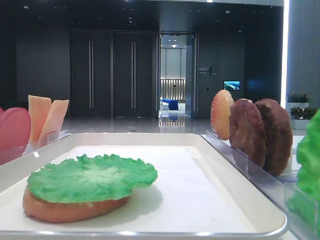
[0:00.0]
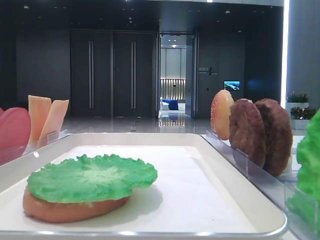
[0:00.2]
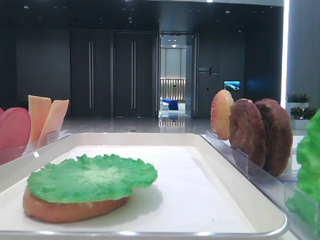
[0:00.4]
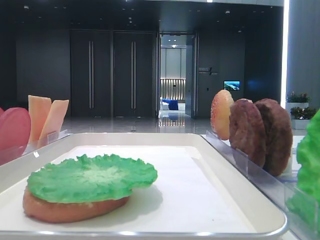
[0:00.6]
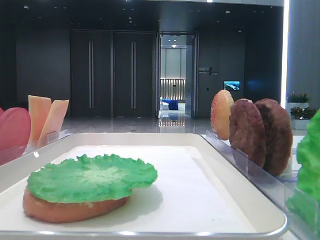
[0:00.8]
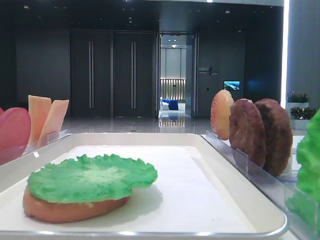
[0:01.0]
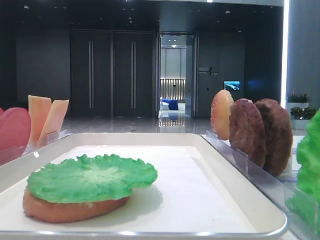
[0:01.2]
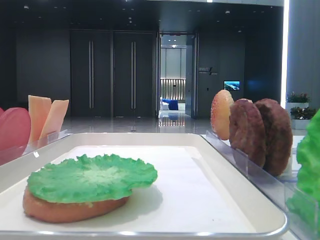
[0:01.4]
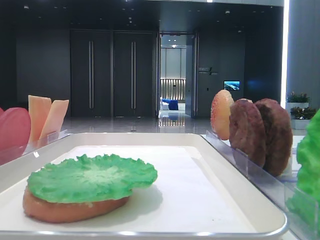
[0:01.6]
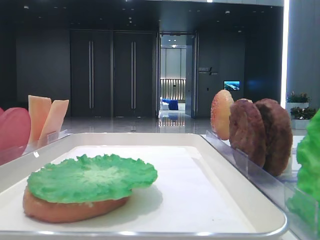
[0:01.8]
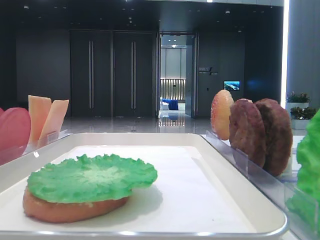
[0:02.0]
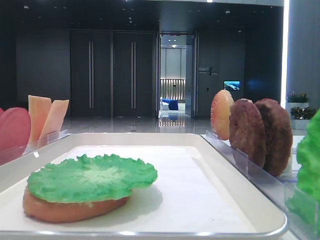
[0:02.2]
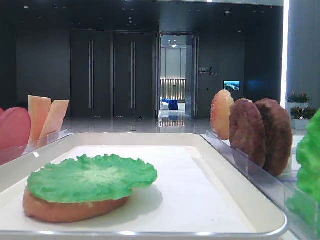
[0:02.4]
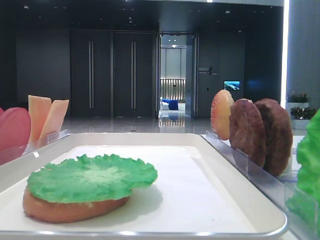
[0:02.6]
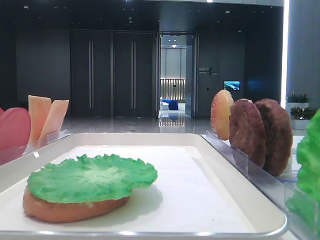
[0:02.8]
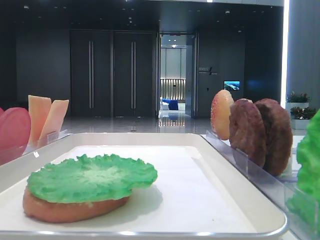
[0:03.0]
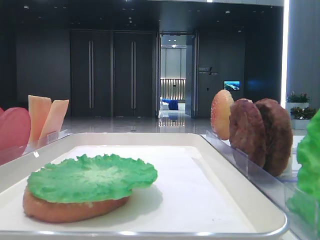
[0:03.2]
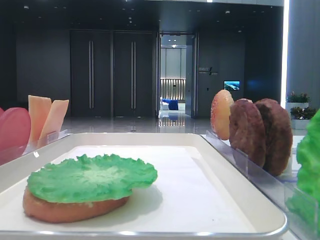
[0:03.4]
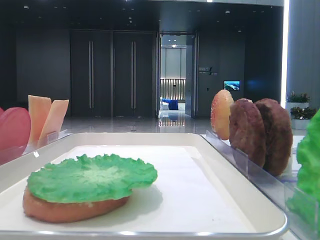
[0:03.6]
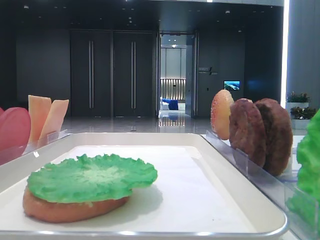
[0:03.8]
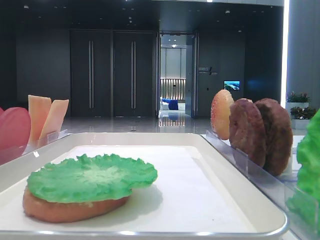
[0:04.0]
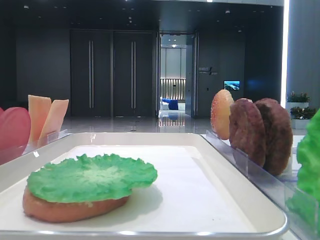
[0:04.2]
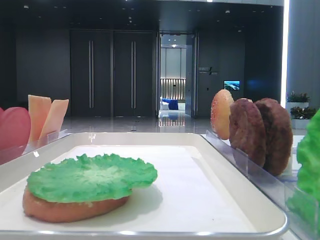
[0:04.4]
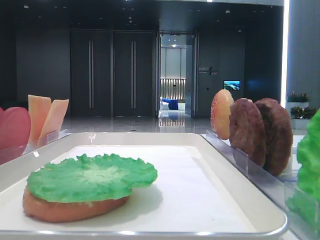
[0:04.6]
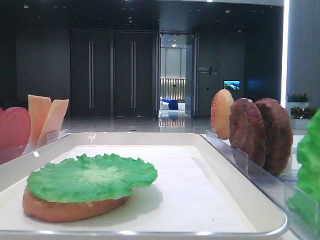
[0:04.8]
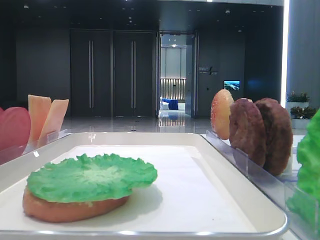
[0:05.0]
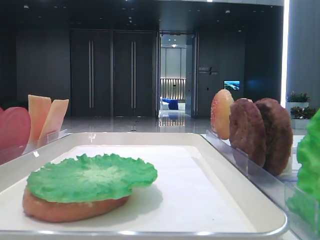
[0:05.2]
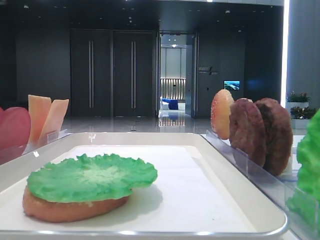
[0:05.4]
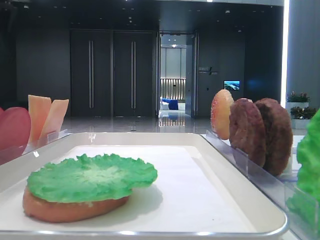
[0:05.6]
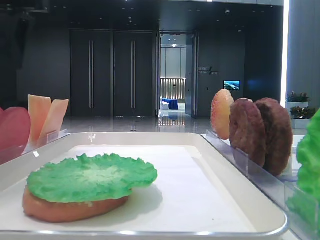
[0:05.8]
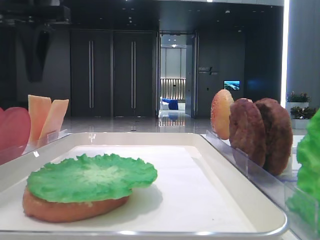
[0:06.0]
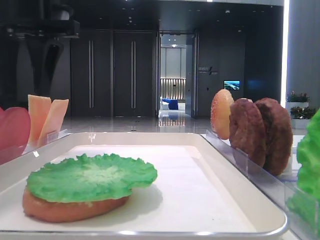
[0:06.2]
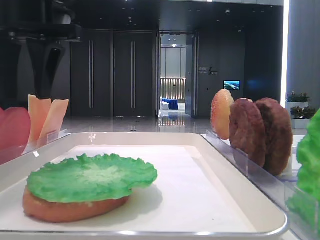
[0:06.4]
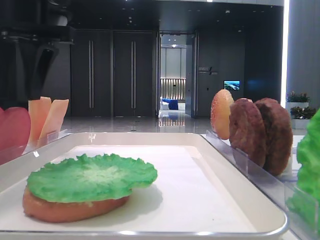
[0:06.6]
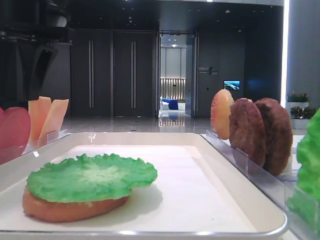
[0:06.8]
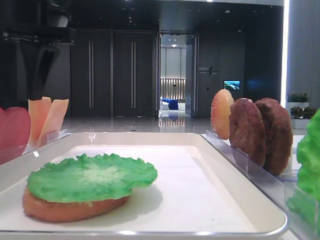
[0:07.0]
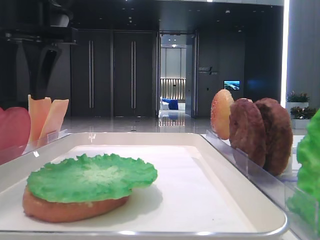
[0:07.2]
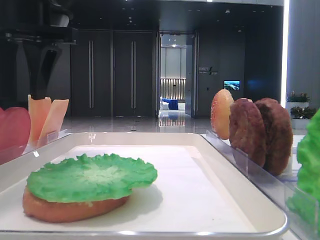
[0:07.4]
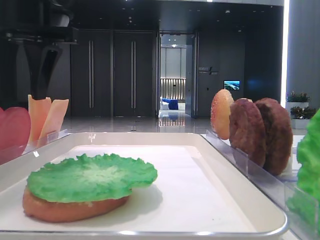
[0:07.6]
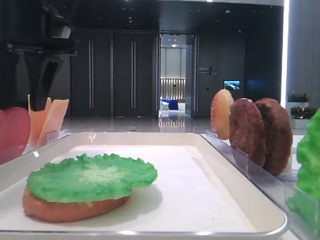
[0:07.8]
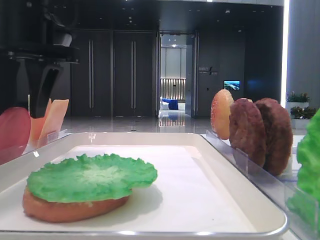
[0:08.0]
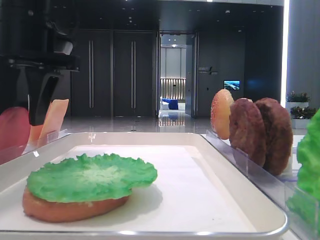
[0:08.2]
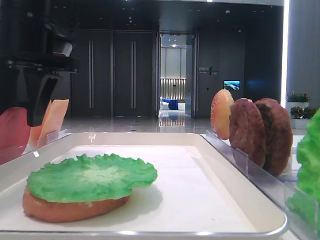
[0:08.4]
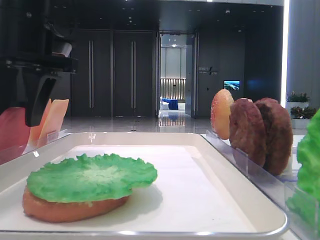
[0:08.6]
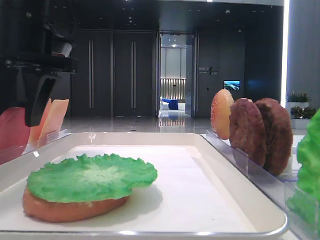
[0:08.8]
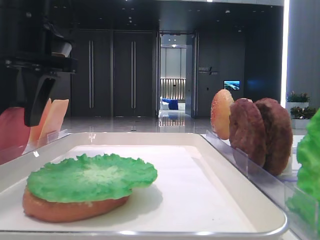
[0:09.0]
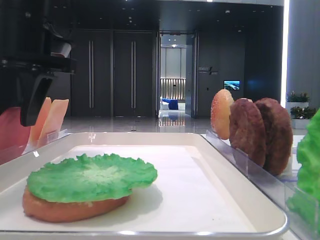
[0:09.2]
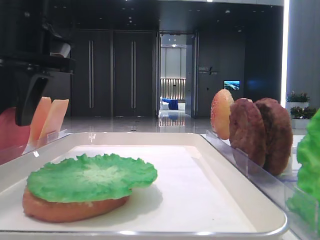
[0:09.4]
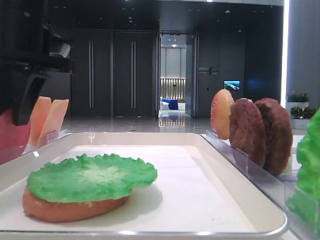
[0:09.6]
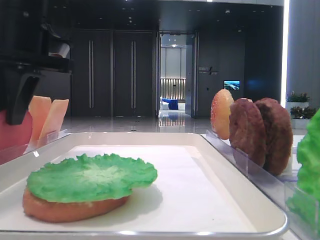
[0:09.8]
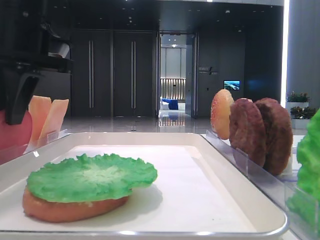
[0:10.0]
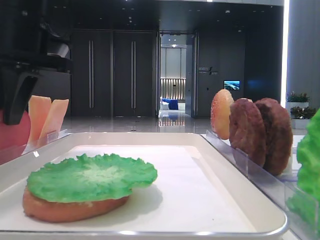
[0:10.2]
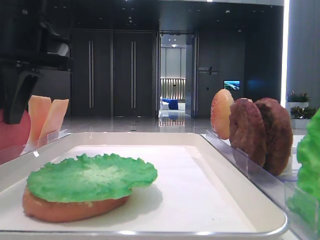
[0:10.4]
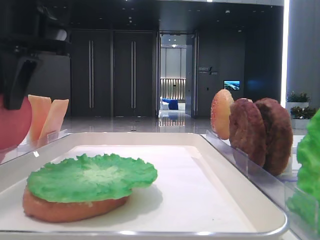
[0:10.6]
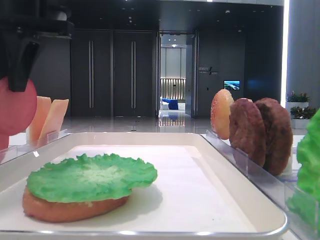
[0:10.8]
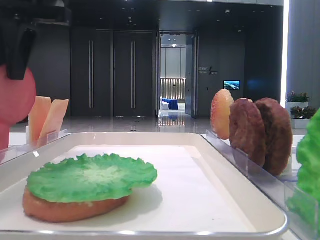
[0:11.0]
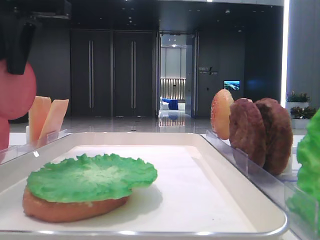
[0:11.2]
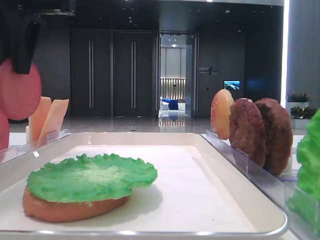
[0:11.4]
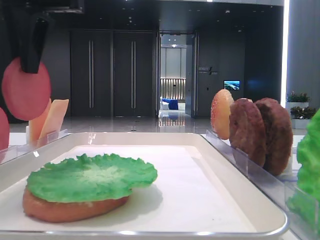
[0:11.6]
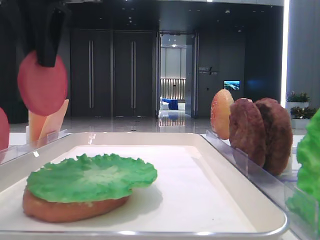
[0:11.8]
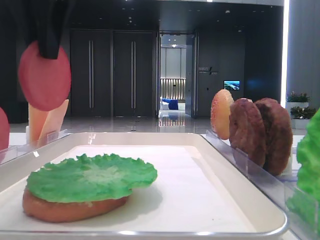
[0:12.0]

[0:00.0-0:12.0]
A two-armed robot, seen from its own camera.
Step, 0:00.0 to 0:10.2: Pick up the tomato slice with the left hand.
0:04.4 to 0:06.0: The left gripper travels to the right, forward and downward by about 15 cm.
0:07.6 to 0:09.0: There are only small adjustments of the grippers.
0:09.0 to 0:10.4: The left gripper closes.
0:10.4 to 0:12.0: The left gripper moves upward and backward, approximately 10 cm.

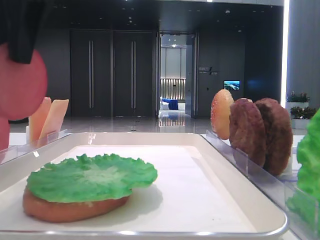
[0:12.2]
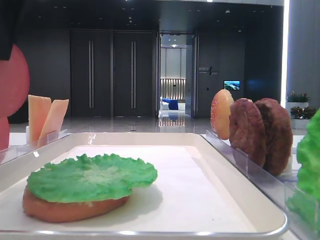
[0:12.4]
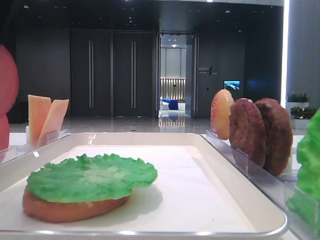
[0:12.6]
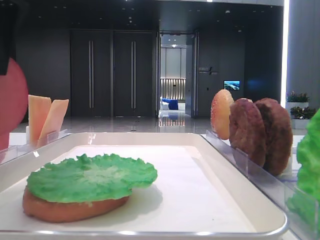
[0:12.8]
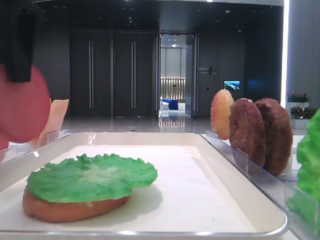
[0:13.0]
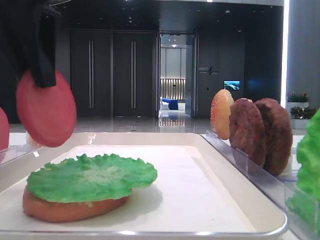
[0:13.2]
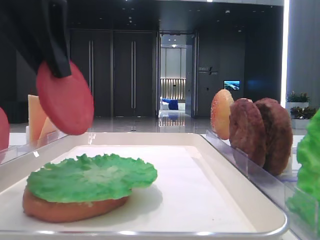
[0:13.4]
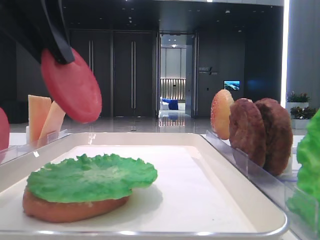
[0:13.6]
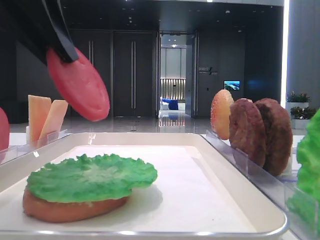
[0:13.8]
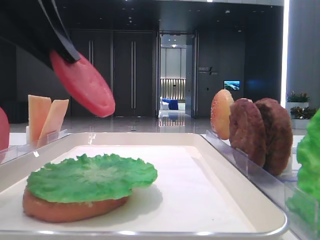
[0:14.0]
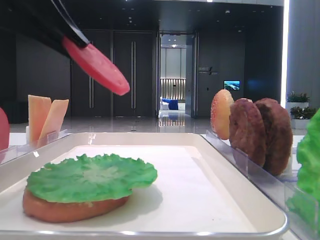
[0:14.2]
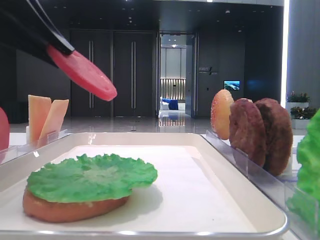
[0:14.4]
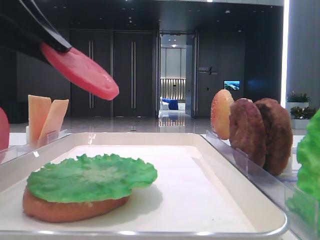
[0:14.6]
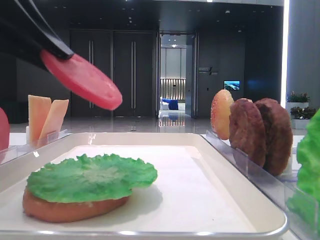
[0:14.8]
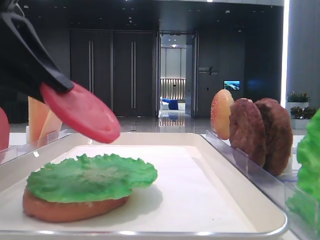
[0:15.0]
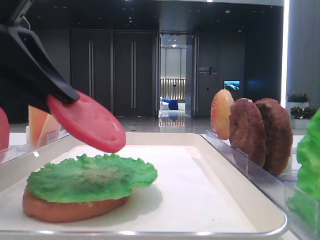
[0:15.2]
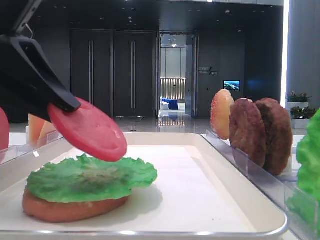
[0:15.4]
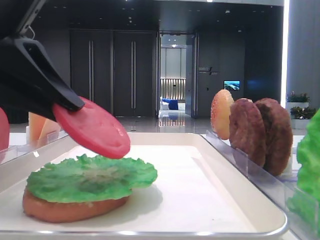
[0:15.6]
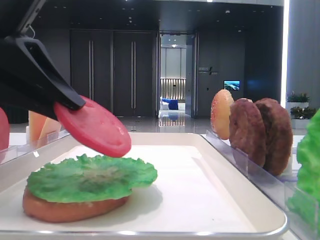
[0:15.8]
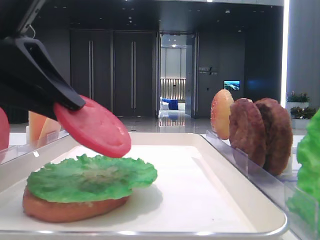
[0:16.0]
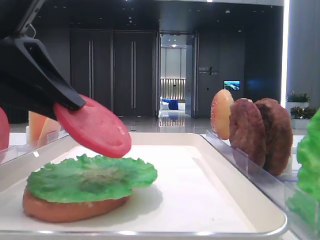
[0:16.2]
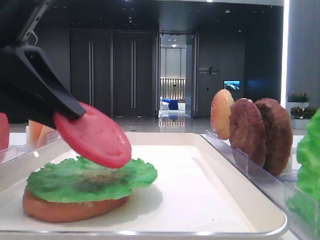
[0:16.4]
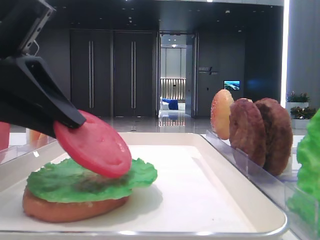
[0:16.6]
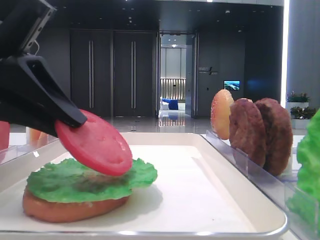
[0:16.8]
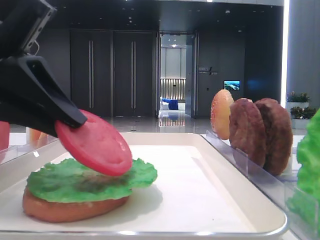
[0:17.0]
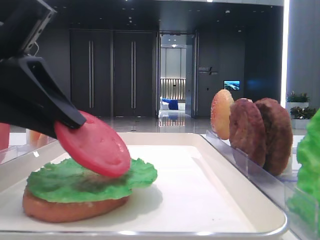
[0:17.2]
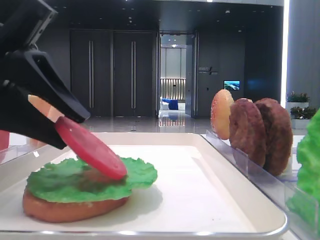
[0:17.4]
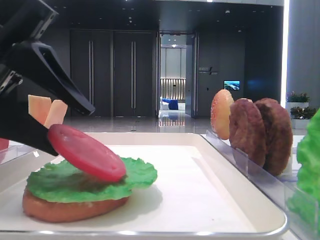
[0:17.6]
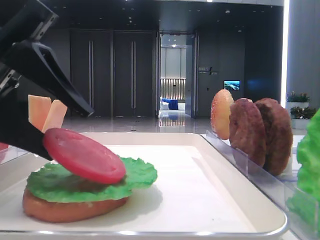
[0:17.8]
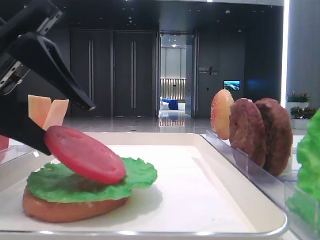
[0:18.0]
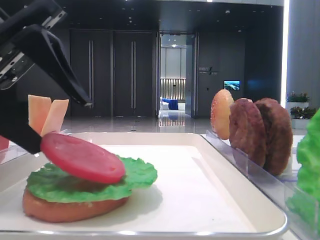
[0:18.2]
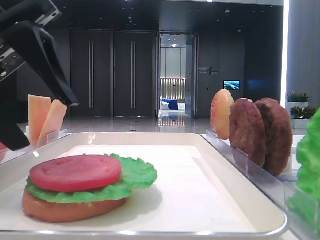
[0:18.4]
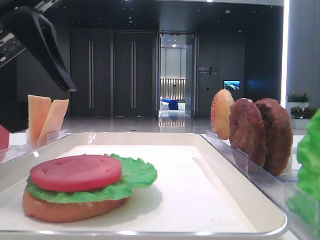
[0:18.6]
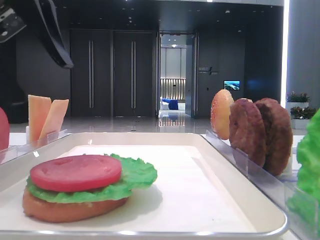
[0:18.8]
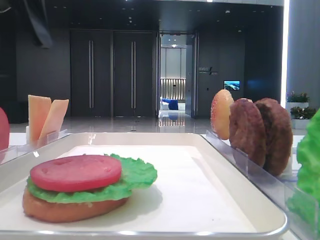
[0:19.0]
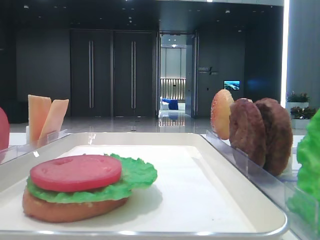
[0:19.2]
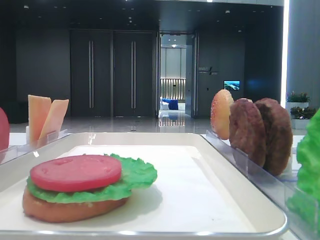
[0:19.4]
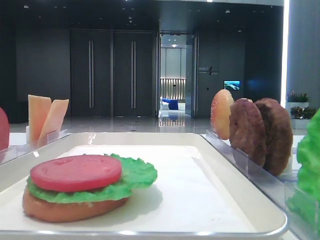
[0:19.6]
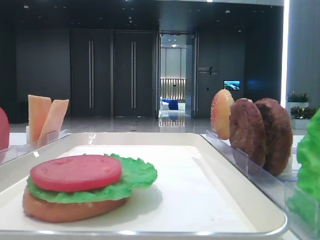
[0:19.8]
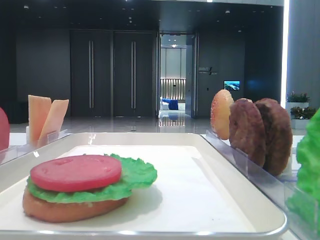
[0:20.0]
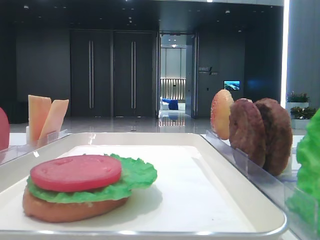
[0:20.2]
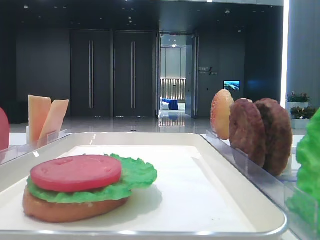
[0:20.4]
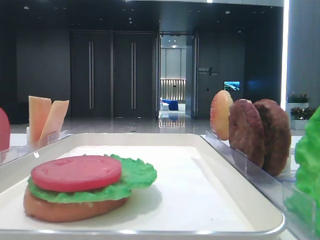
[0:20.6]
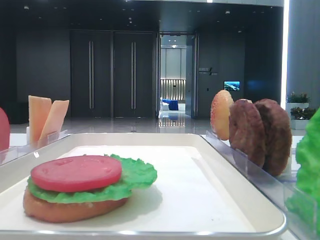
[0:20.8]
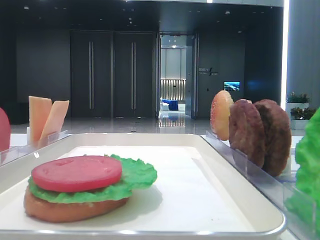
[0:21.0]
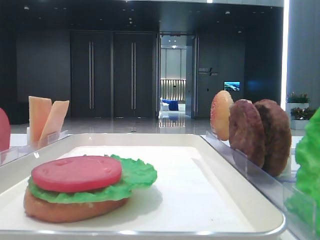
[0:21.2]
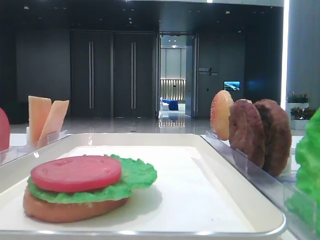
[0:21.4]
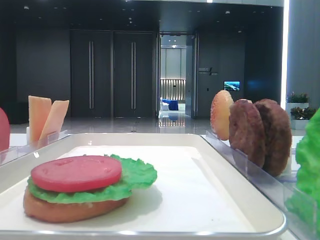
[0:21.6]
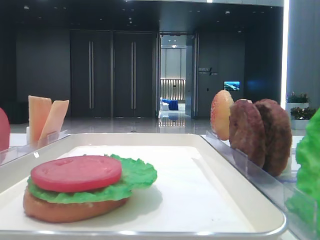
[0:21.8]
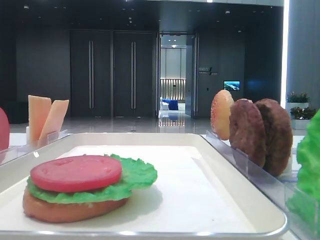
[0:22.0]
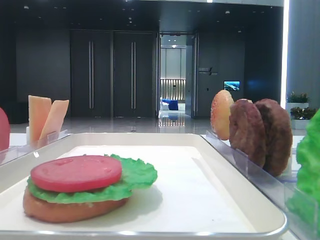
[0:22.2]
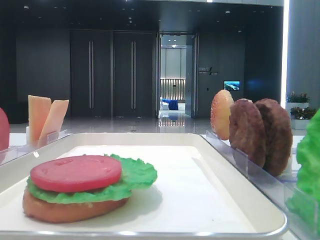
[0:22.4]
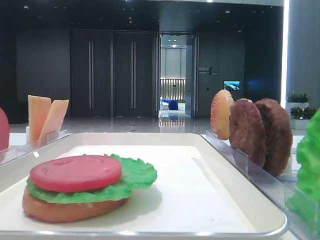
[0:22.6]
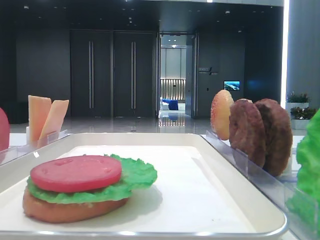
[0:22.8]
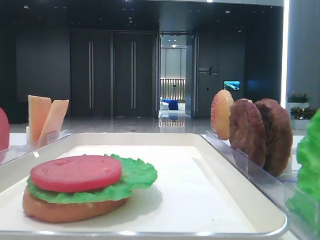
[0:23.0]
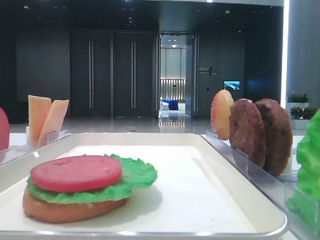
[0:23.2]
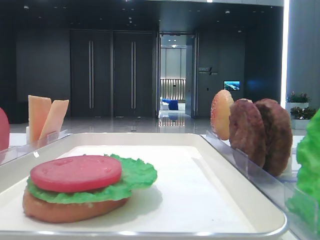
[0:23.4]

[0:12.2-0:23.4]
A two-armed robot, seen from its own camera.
Step, 0:12.2 to 0:18.2: Place the tomato slice on the lettuce leaf with the left hand.
0:12.2 to 0:13.8: The left gripper shifts approximately 5 cm backward.
0:13.8 to 0:15.4: The left gripper moves downward, roughly 10 cm.
0:15.4 to 0:17.0: The grippers stay close to where they were, moving slightly.
0:17.0 to 0:18.6: The left gripper opens its fingers.
0:18.6 to 0:20.2: The left gripper goes approximately 20 cm to the left and upward.
0:20.2 to 0:21.8: The left gripper shifts some 25 cm backward.
